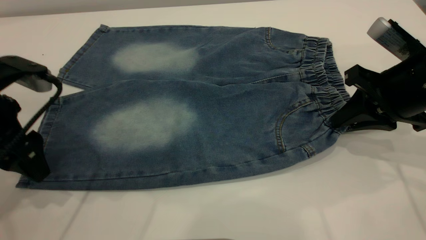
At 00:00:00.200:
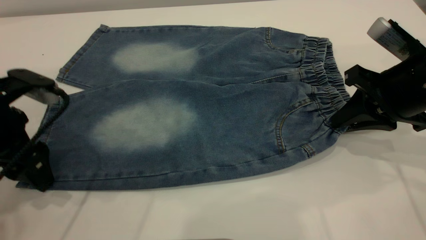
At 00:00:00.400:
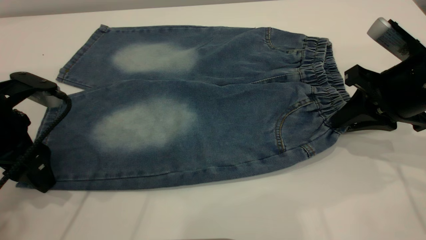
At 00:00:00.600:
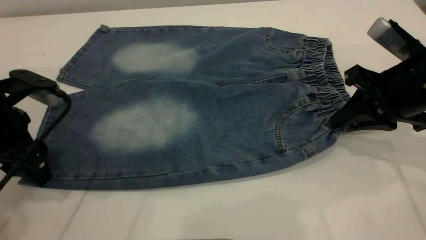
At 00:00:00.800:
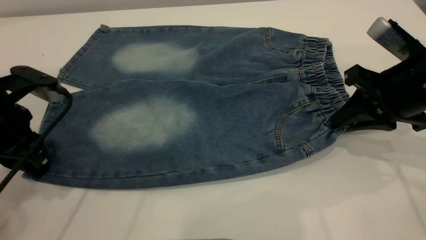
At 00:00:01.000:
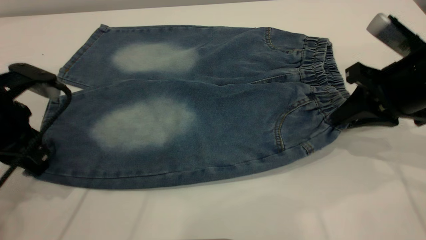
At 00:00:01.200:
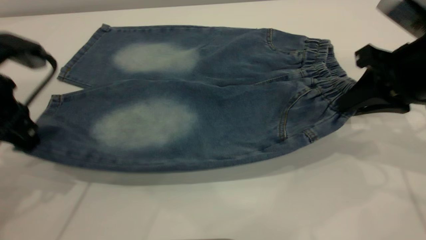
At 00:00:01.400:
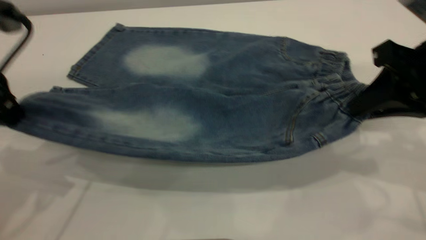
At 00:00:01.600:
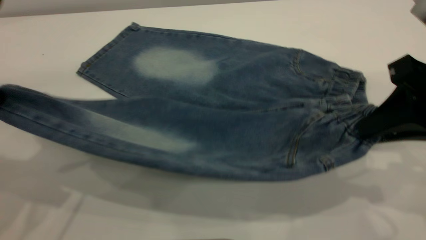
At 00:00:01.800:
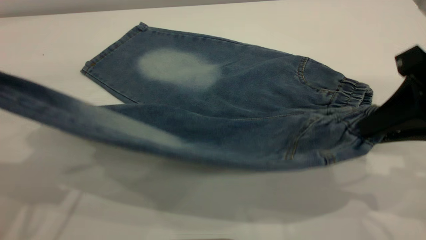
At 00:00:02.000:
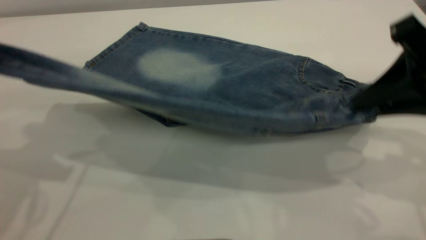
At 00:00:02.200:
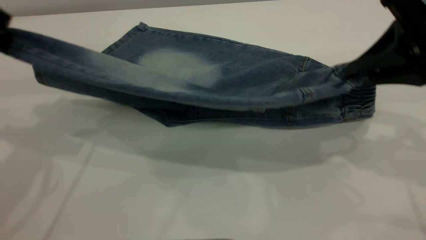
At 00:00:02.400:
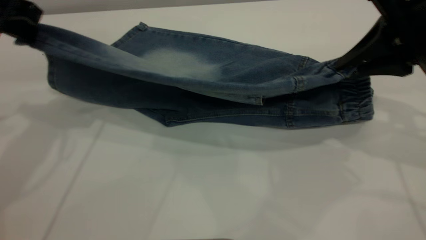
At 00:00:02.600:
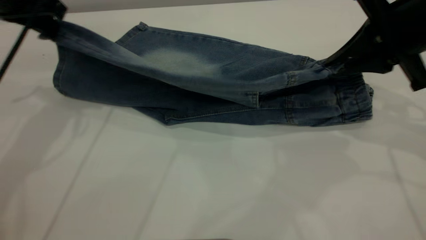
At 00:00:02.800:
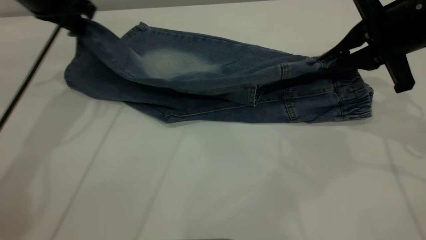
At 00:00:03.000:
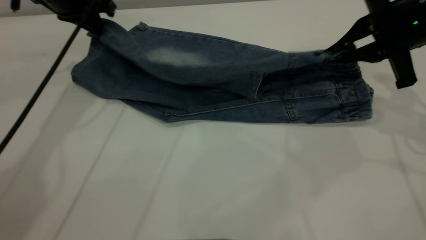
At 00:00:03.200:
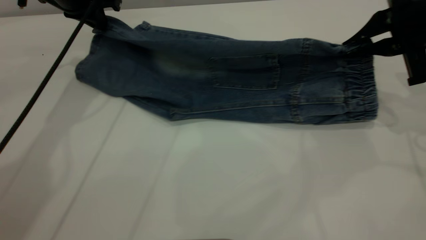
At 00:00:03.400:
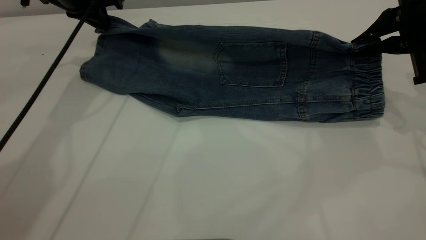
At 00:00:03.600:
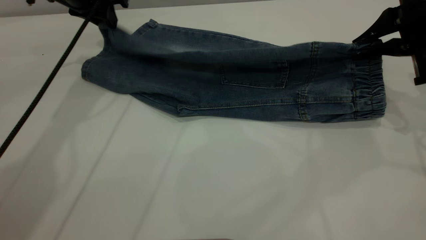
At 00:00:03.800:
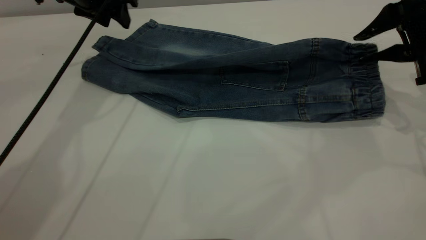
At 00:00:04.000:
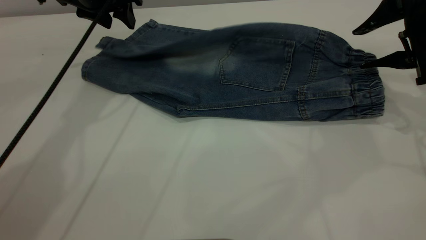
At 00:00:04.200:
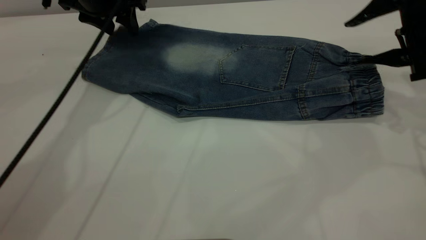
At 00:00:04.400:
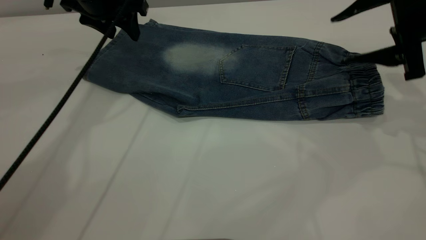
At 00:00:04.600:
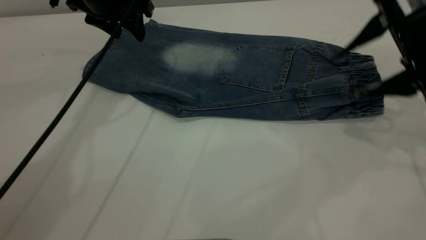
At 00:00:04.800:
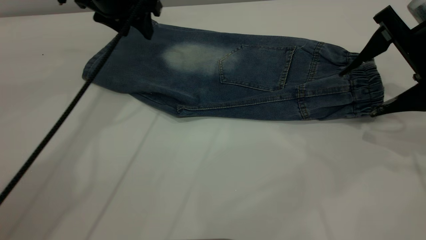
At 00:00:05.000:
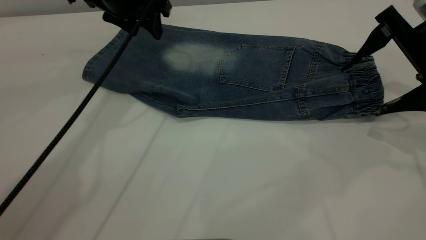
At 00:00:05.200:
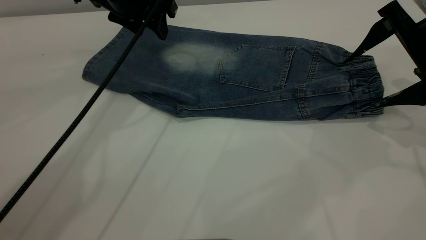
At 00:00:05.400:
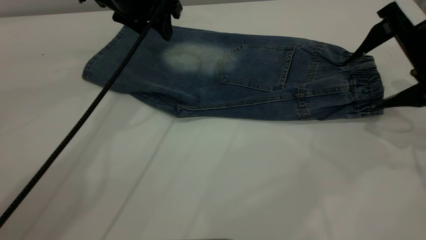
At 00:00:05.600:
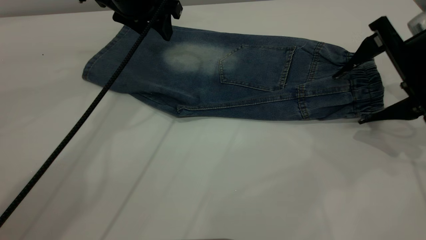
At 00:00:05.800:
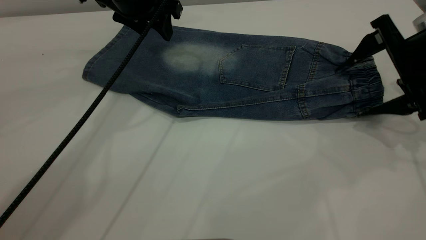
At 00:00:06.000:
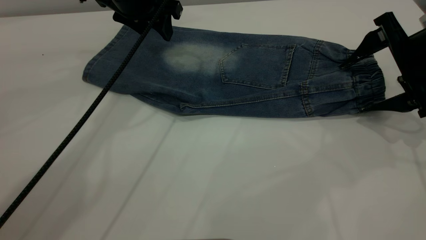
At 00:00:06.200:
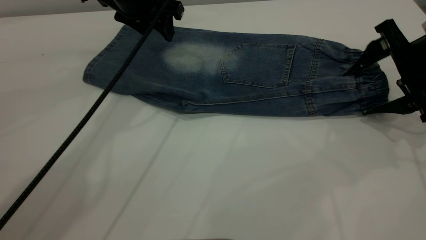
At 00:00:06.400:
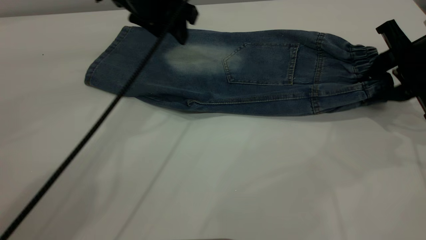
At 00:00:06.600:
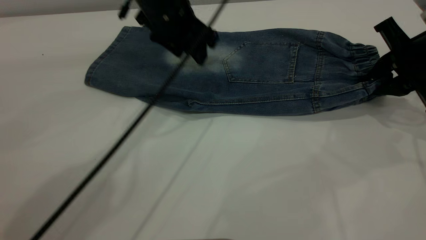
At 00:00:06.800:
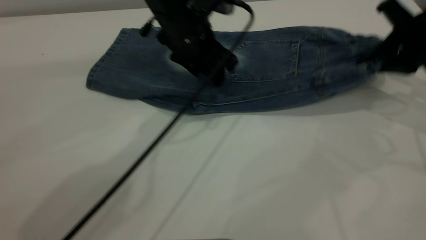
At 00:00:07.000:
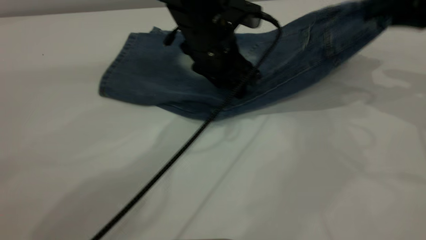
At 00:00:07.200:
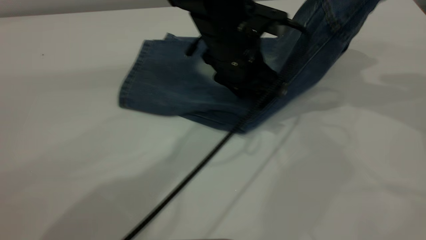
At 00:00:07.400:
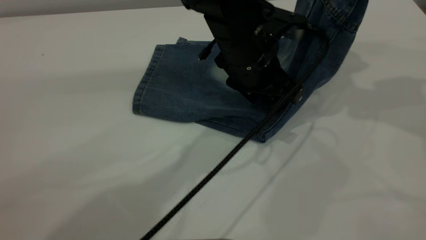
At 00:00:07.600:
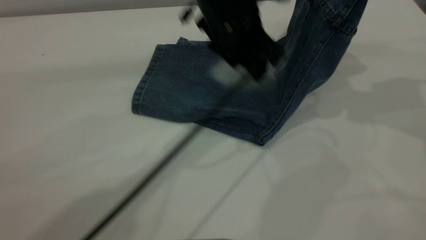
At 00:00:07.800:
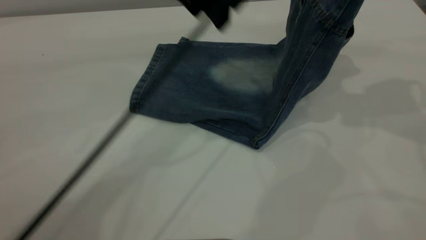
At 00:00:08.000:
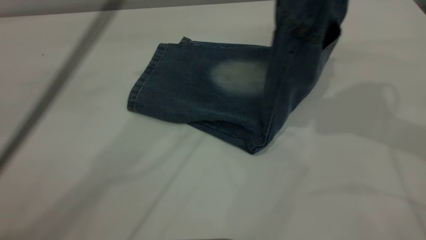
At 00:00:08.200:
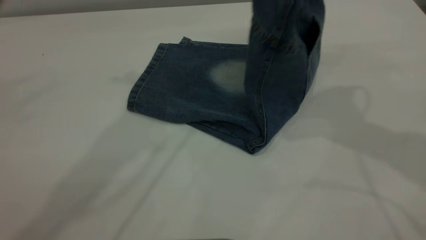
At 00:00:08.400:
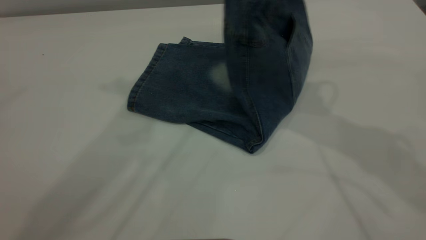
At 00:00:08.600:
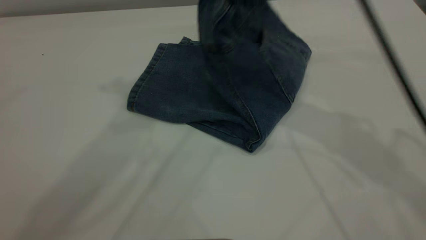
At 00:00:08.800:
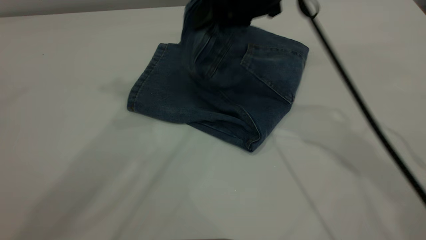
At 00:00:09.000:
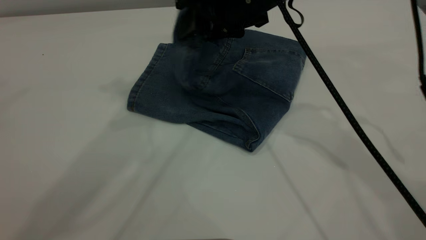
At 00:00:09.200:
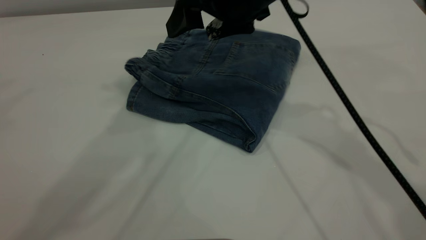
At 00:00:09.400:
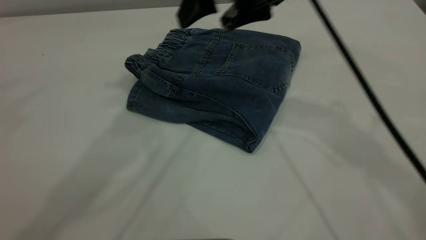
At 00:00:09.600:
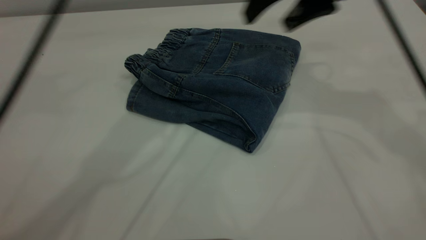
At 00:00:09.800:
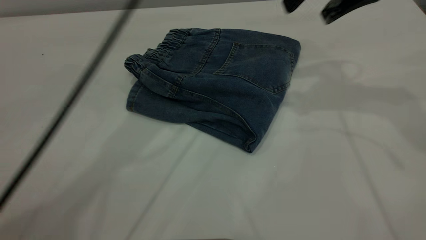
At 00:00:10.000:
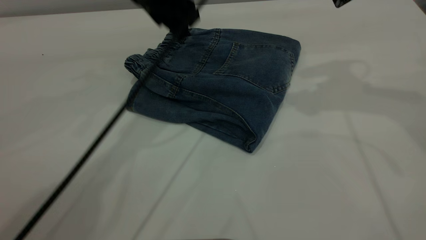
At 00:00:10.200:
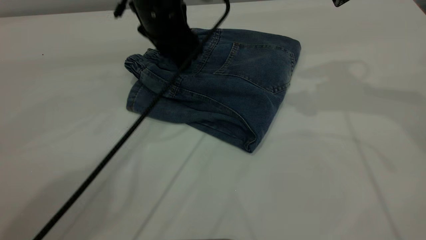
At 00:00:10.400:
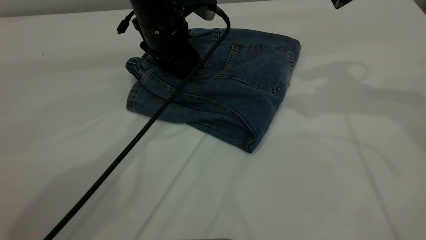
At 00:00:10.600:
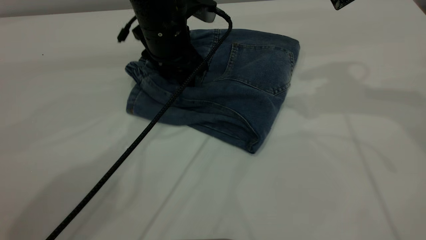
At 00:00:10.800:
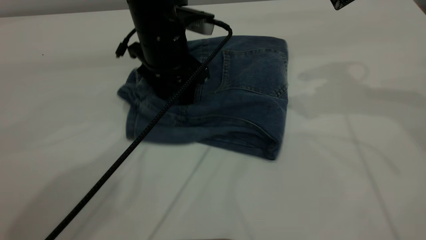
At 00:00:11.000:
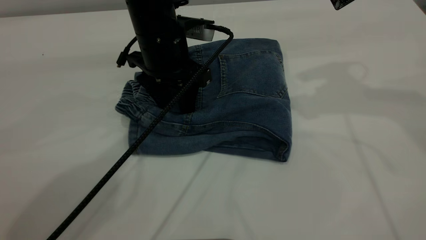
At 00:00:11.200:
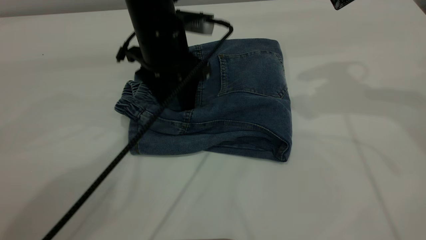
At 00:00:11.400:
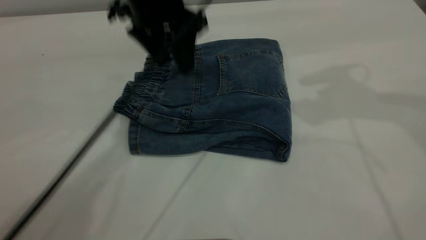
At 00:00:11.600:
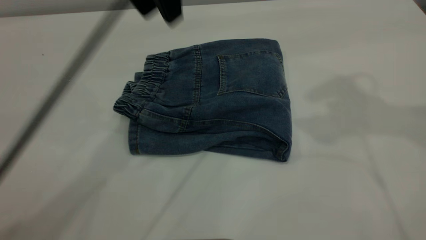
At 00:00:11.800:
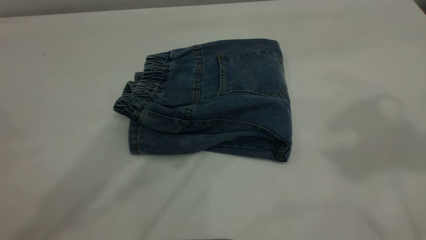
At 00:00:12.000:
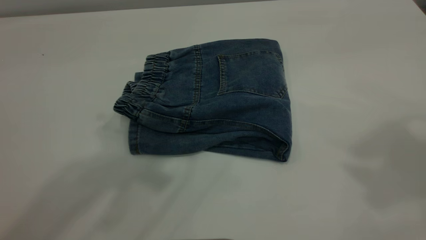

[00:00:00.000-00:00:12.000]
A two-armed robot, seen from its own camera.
Step, 00:00:00.000 to 00:00:04.400: Fold the bottom of the pants upward.
Step, 00:00:04.600 to 00:00:09.600: Fold your pants from right to left.
00:00:00.000 to 00:00:01.600: The right gripper is displaced backward and upward by some 10 cm, while the left gripper heads upward, covering some 10 cm, and closes up.
00:00:01.600 to 00:00:03.000: The left gripper is displaced forward by some 25 cm; the right gripper heads forward, covering about 15 cm.
00:00:03.000 to 00:00:04.400: The left gripper shifts approximately 5 cm to the right, and opens up. The right gripper opens up.
00:00:04.400 to 00:00:06.000: The left gripper shifts roughly 5 cm to the right.
00:00:06.000 to 00:00:07.600: The right gripper shifts some 15 cm upward, and closes, while the left gripper heads to the right and backward, covering about 15 cm.
00:00:07.600 to 00:00:09.000: The right gripper is displaced to the left by approximately 20 cm, and opens up; the left gripper moves upward and to the left, approximately 30 cm.
00:00:09.000 to 00:00:10.400: The right gripper shifts some 15 cm to the right and upward; the left gripper travels downward by approximately 30 cm.
00:00:10.400 to 00:00:12.000: The left gripper moves upward and backward, some 40 cm. The right gripper heads upward and backward, covering approximately 25 cm.
